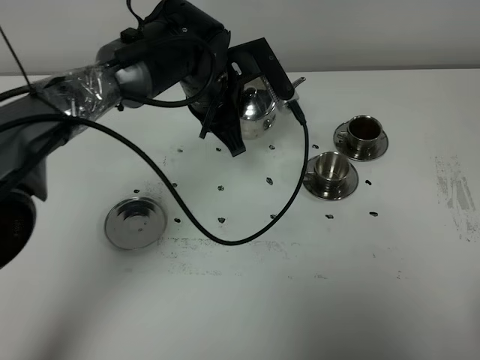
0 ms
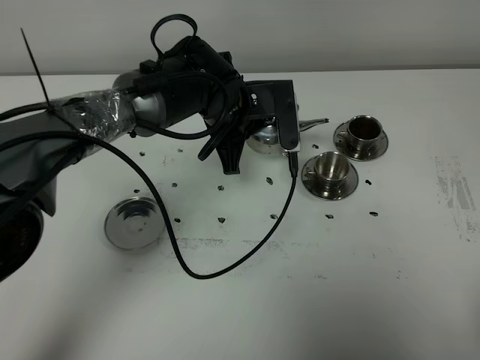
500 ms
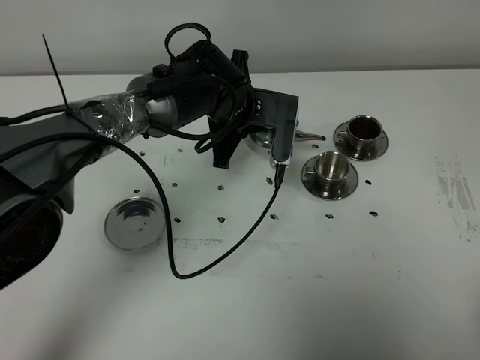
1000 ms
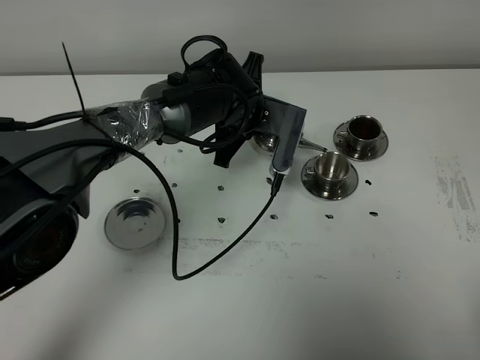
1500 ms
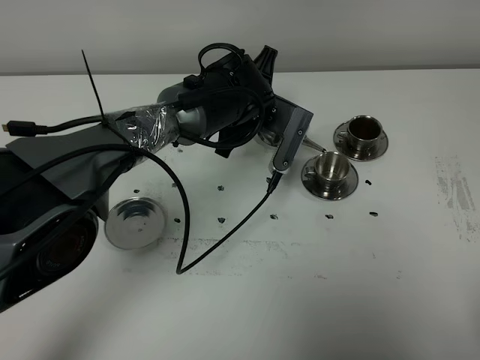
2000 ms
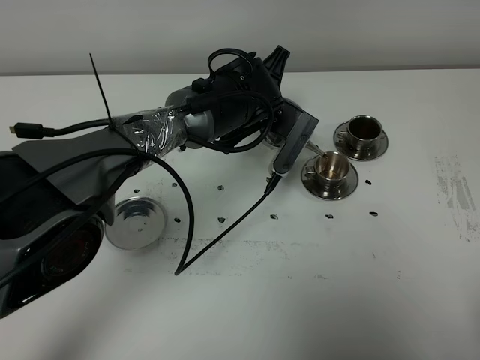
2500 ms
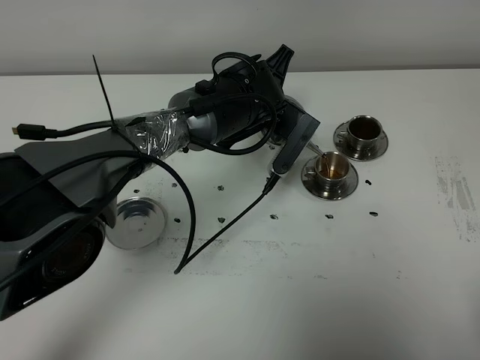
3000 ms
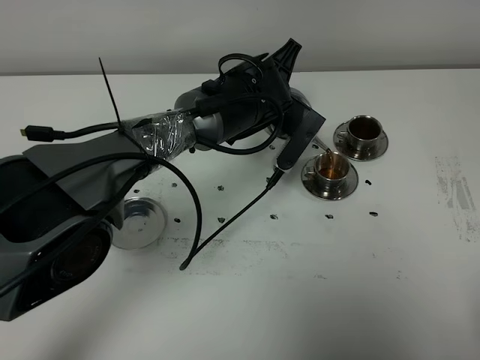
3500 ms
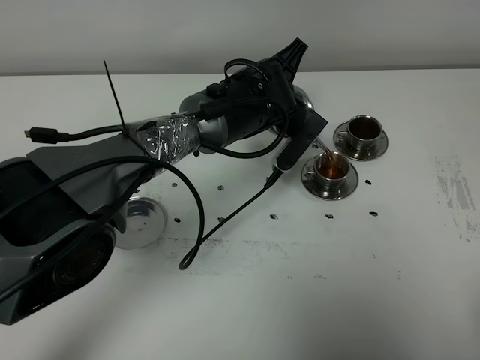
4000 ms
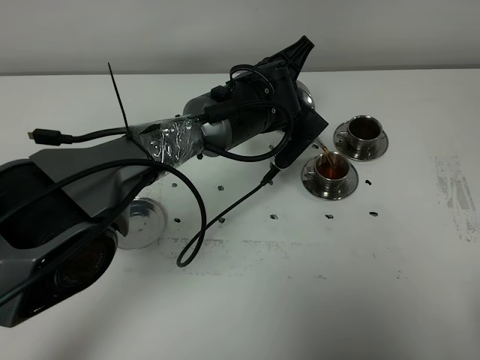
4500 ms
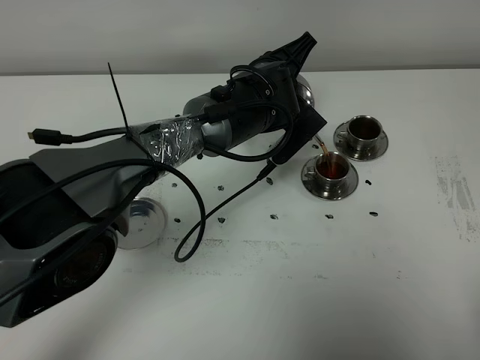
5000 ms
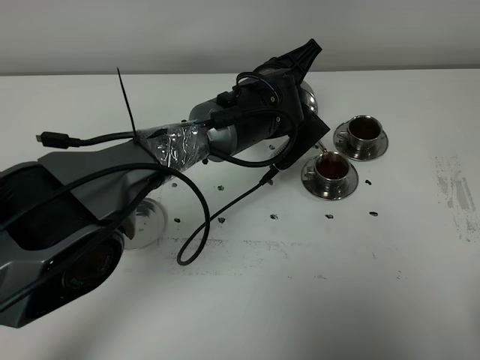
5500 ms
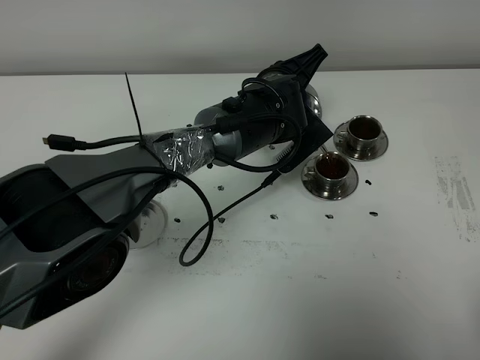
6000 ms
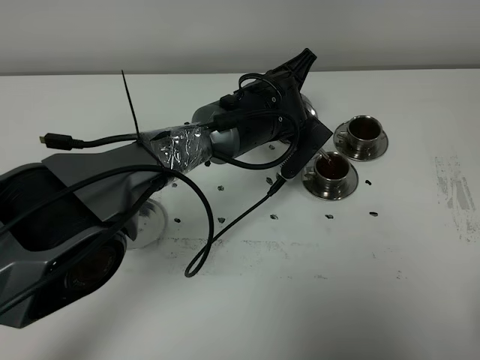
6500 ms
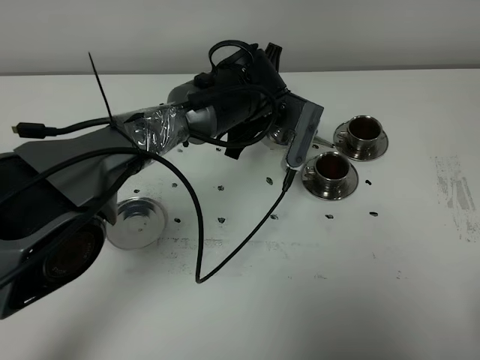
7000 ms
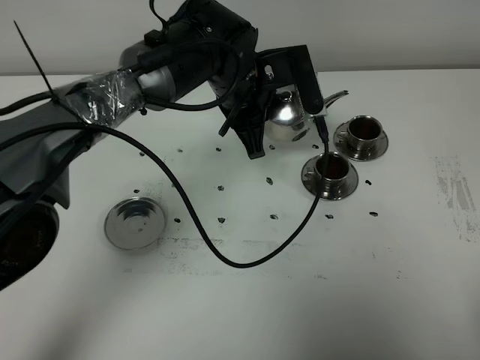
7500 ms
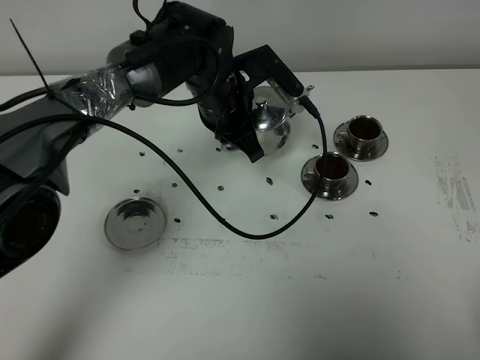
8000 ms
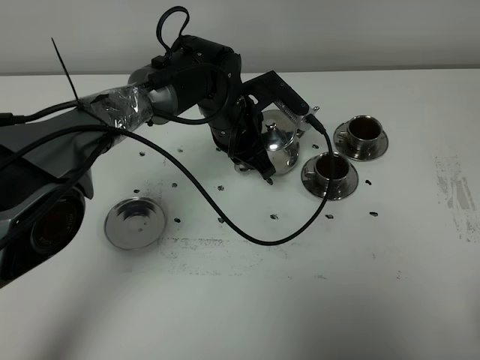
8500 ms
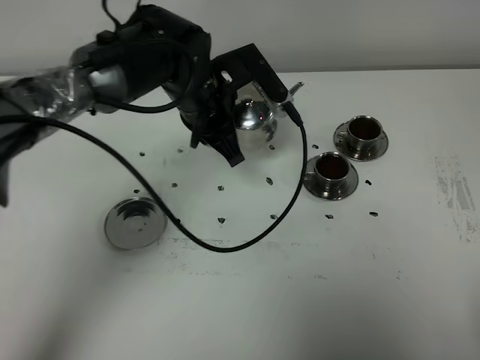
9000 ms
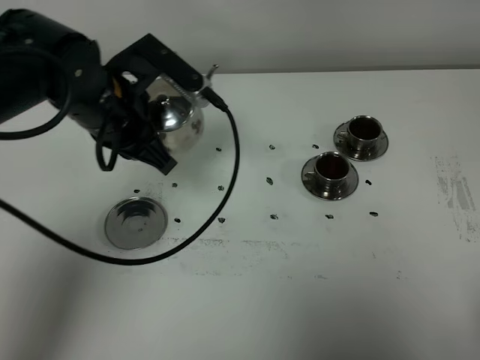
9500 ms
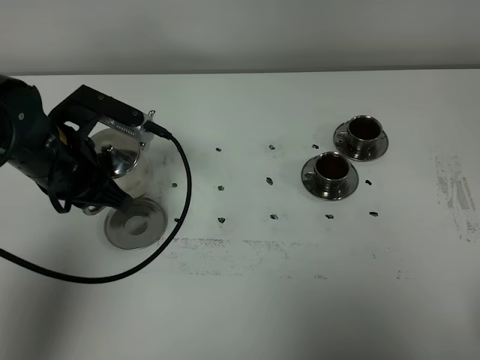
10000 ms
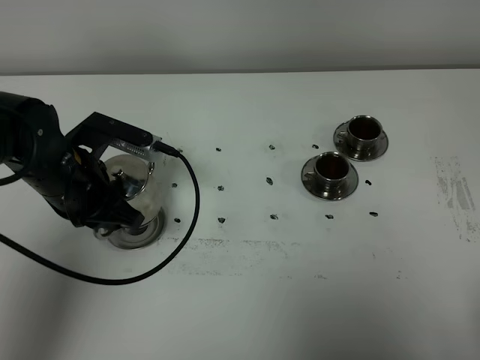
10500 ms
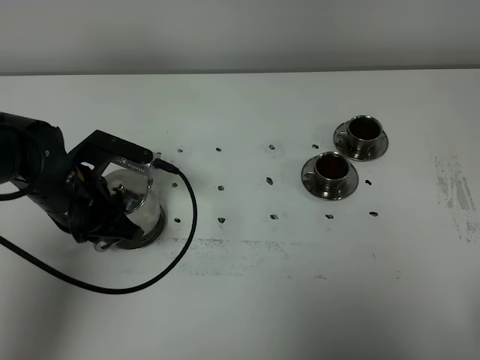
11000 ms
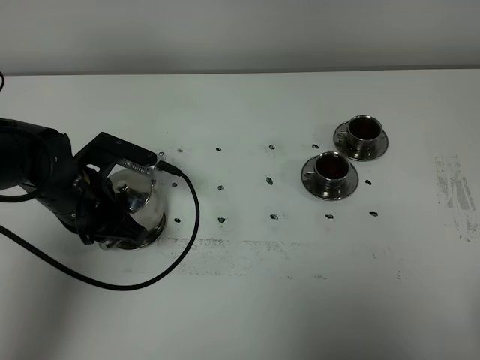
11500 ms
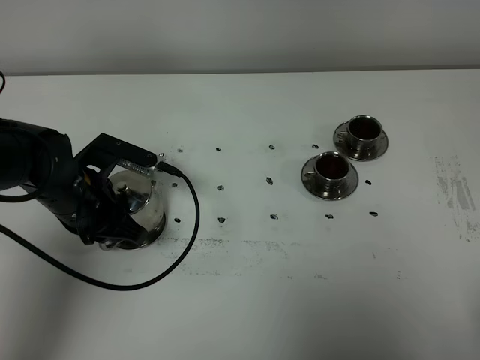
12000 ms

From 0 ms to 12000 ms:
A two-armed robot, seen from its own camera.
Task of the whole recording: grasp the stainless steel teapot and pour the tea into the two stainless steel teacups one by one, put the stainless steel teapot back in its original place.
Step, from 0 ms to 6500 ms: Pour tea into the teacup with the left gripper.
From 0 ms to 2000 ms: The left gripper moves to the right, some 5 cm.
From 2000 ms to 4000 ms: The grippers make only small movements.
From 4000 ms to 6000 ms: There are only small adjustments of the grippers.
From 6000 ms to 8000 ms: The left gripper shifts some 10 cm to the left.
From 8000 ms to 10000 ms: The left gripper shifts about 20 cm to the left and backward.
From 10000 ms to 12000 ms: The left gripper moves downward, about 5 cm.

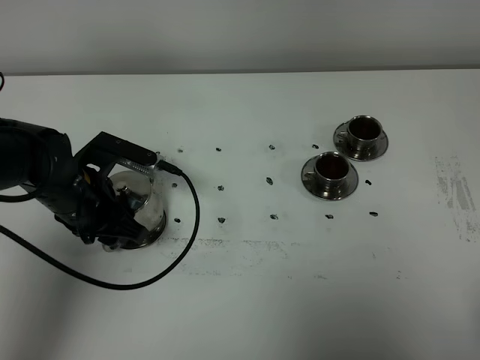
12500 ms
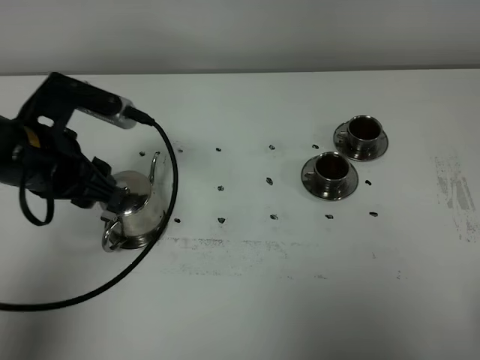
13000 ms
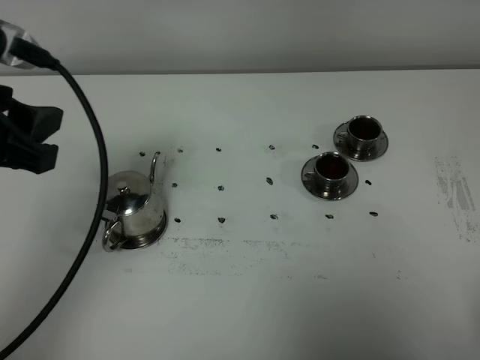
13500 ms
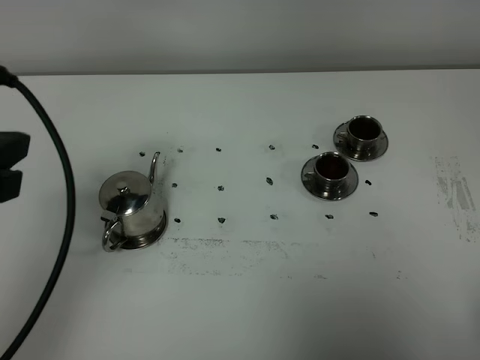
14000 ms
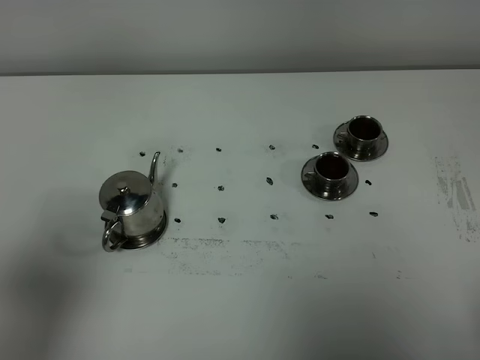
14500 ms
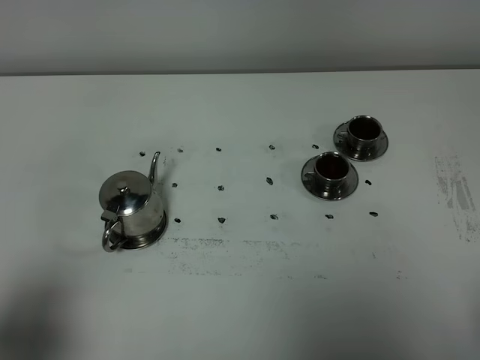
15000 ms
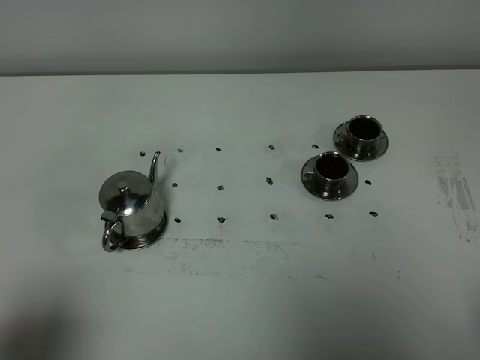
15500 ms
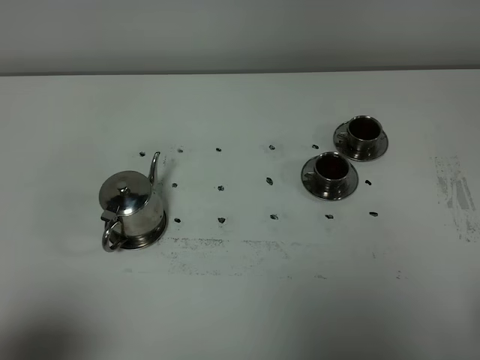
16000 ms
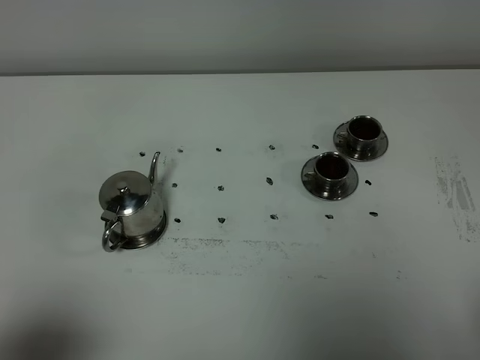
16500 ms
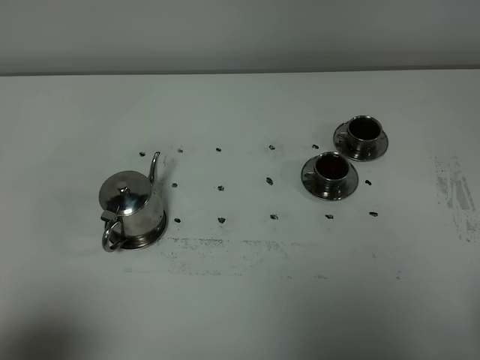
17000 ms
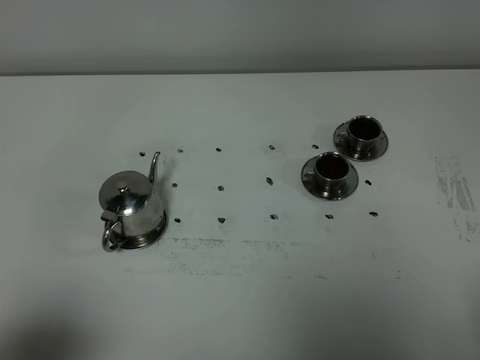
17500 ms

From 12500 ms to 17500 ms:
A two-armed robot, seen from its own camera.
Task of the whole recording: grasp the stainless steel teapot and pour the tea into the two stainless steel teacups one by one, put the stainless steel teapot back in its original place.
From 12500 ms to 15000 ms: The left gripper goes roughly 30 cm backward, upward and to the left.
From 15000 ms to 17500 ms: The grippers stay close to where they were, moving slightly.
